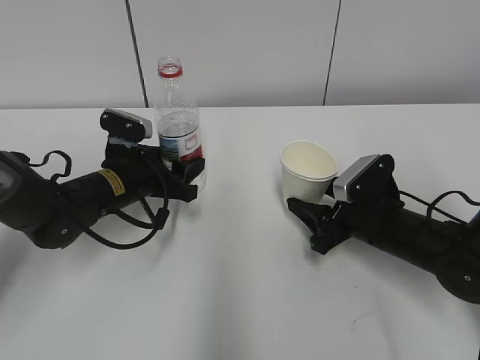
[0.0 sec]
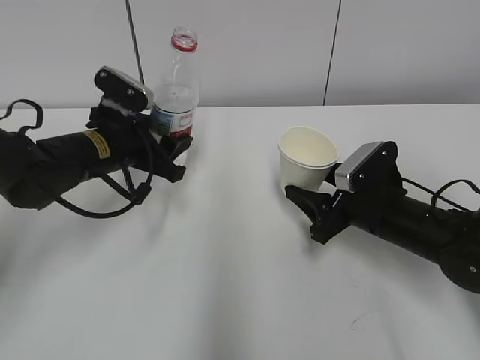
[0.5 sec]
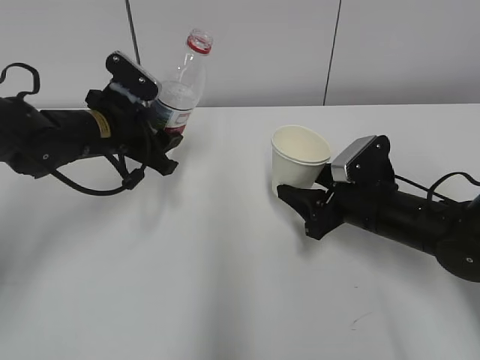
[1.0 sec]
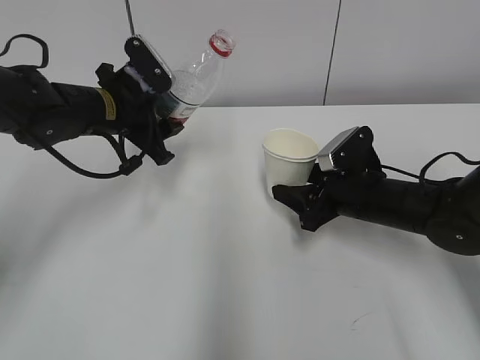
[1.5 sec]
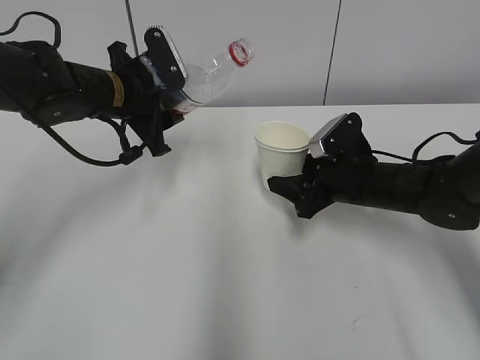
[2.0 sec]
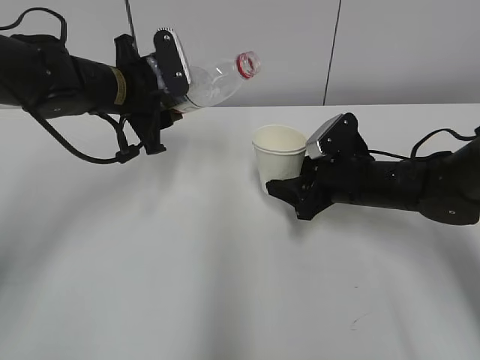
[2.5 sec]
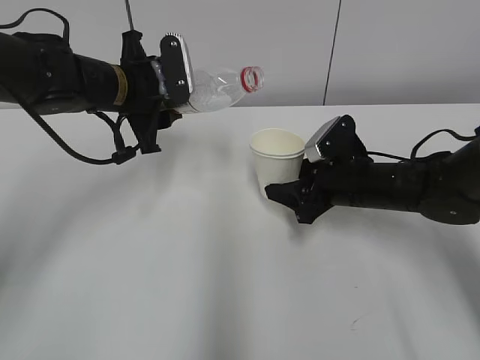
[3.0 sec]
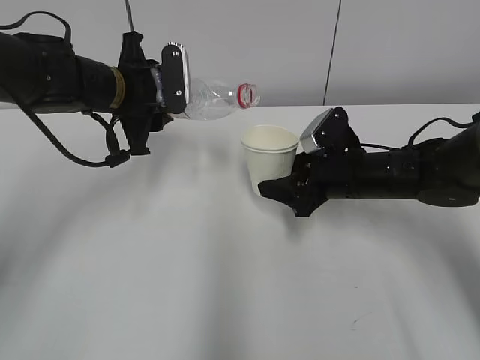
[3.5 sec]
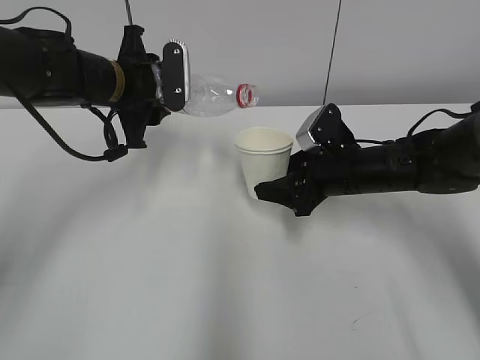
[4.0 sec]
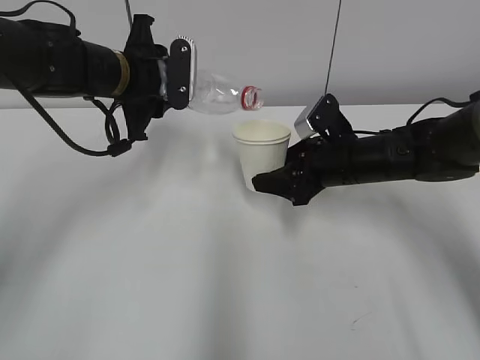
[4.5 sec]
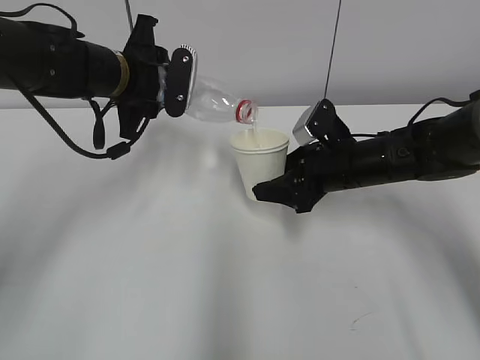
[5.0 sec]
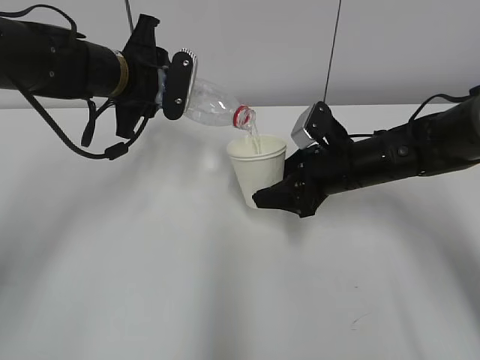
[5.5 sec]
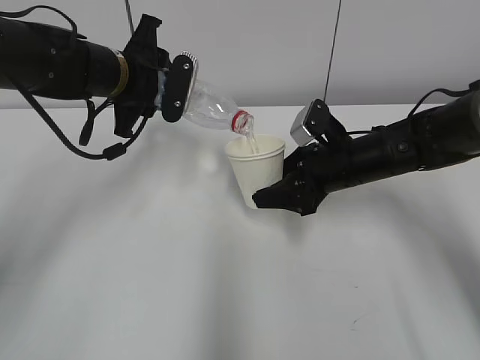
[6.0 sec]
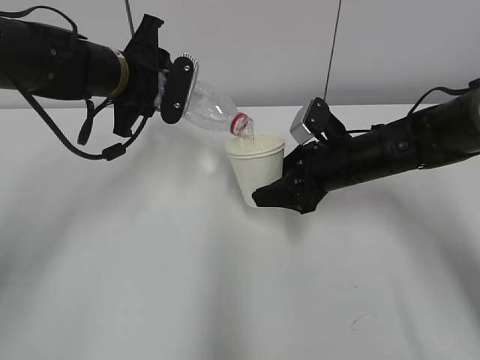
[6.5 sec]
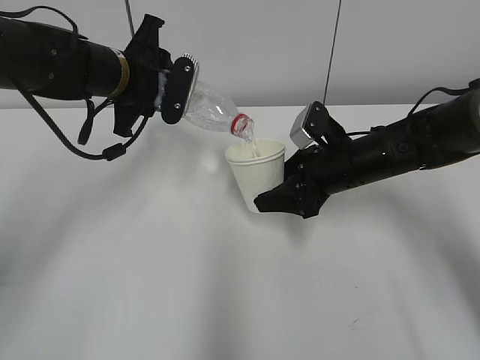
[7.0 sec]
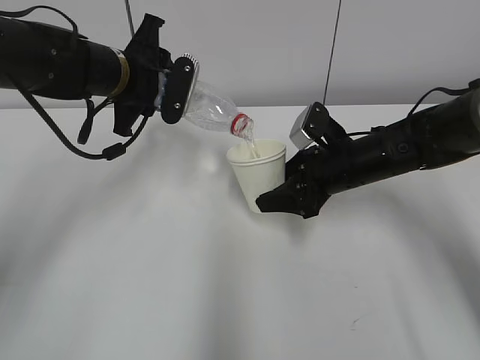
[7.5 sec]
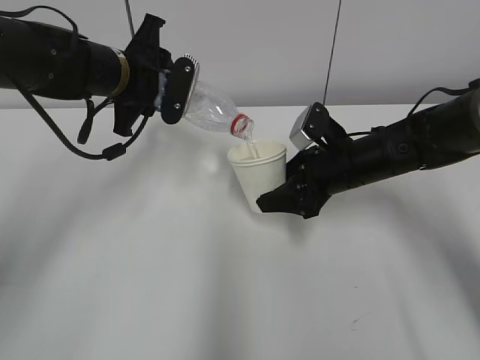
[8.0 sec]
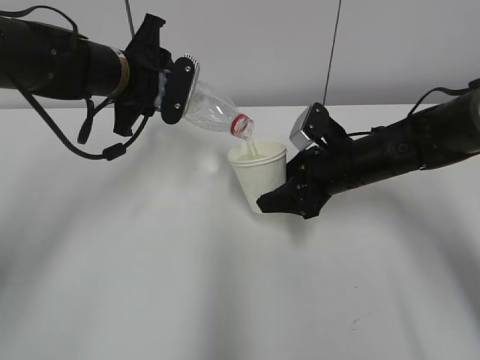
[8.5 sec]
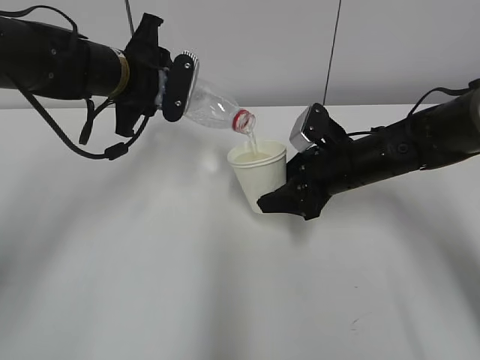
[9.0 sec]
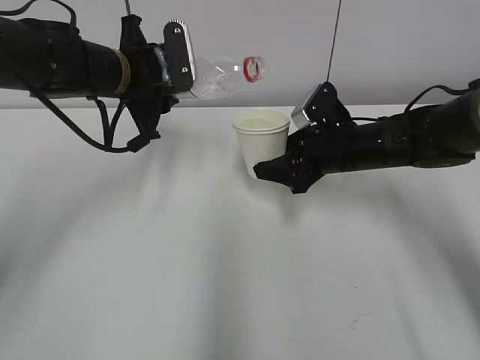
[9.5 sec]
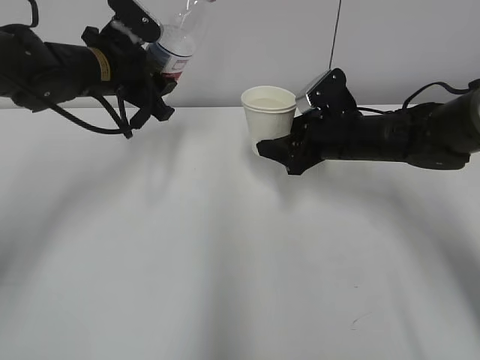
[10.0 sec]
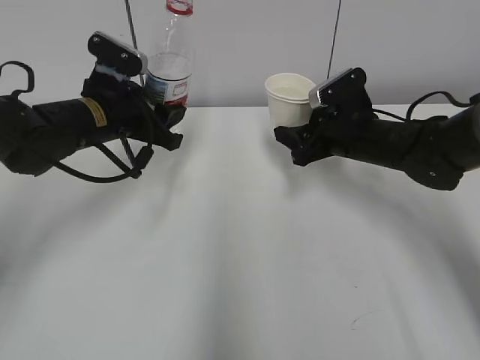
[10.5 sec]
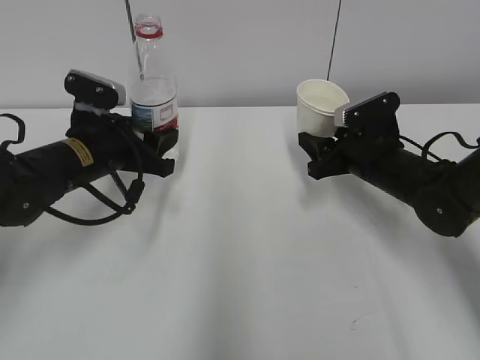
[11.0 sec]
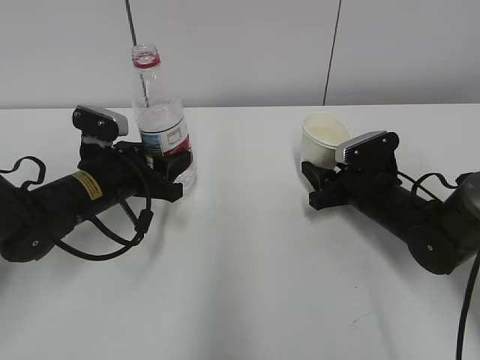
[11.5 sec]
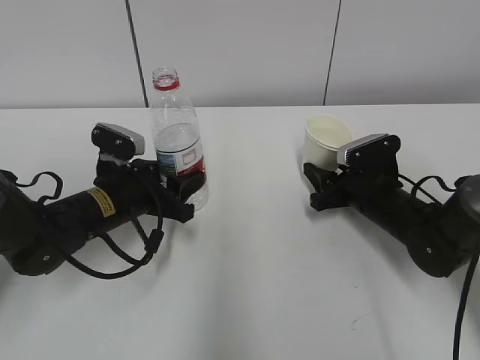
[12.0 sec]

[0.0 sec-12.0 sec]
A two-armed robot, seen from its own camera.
Step, 0.0 sec to 2.5 sec: Lift the paper cup with the right hand.
Step, 3.0 sec to 6.0 sec: Fill water with the right hand.
Step, 3.0 sec to 6.0 sec: Pour water with the left hand.
Step, 6.5 sec to 7.5 sec: Collect water with the left hand.
Step, 8.0 sec to 9.5 sec: Place the paper cup with the right hand.
0.0 sec to 2.0 sec: The right gripper changes place by about 5 cm, while the left gripper heads upward, covering roughly 10 cm.
4.0 sec to 6.0 sec: There are only small adjustments of the grippers.
6.0 sec to 8.0 sec: The two grippers keep their place.
10.0 sec to 12.0 sec: The left gripper shifts about 15 cm downward and backward; the right gripper goes roughly 10 cm downward.

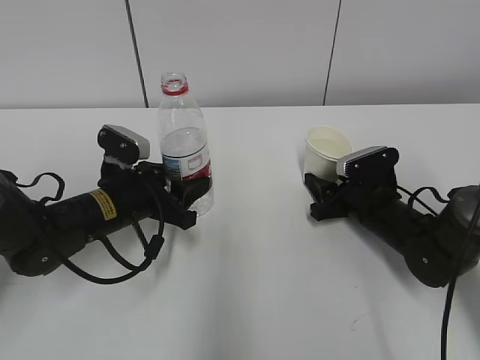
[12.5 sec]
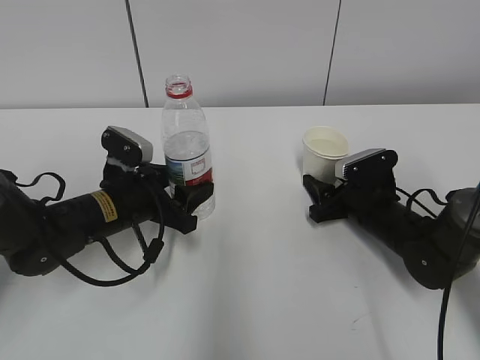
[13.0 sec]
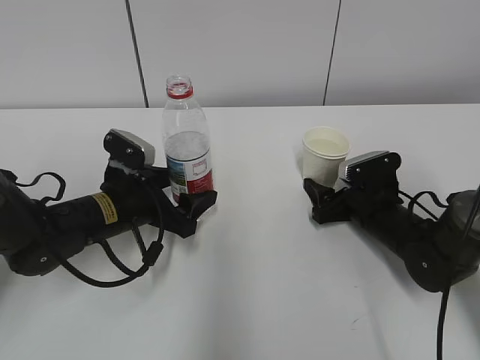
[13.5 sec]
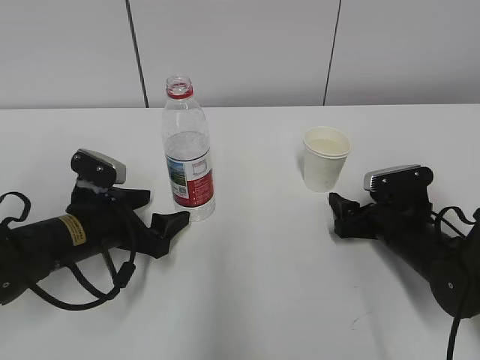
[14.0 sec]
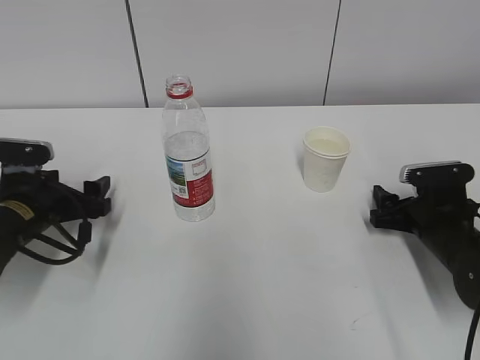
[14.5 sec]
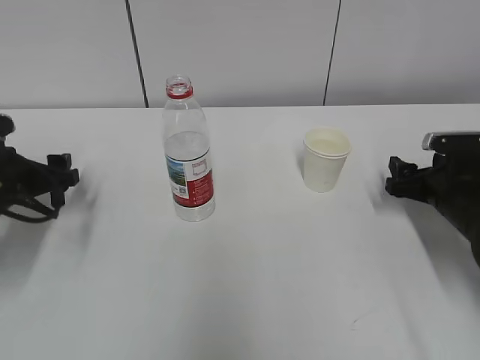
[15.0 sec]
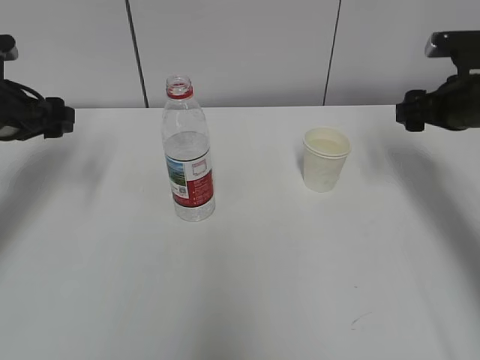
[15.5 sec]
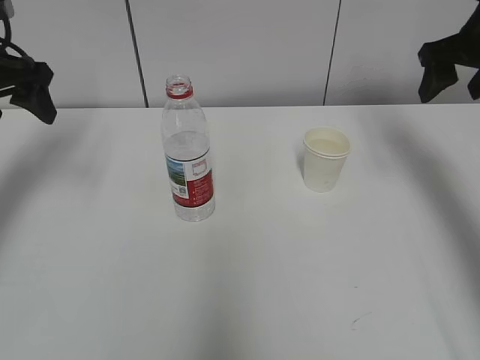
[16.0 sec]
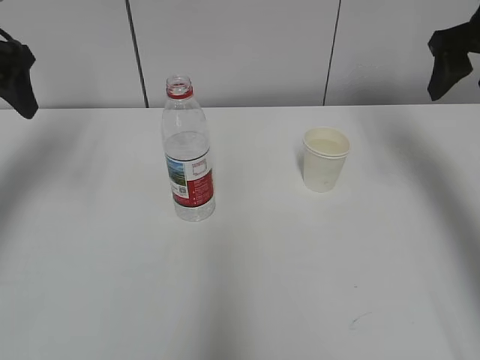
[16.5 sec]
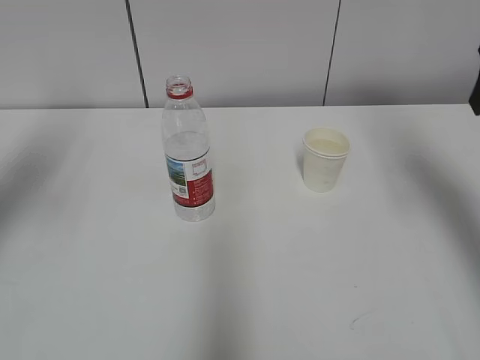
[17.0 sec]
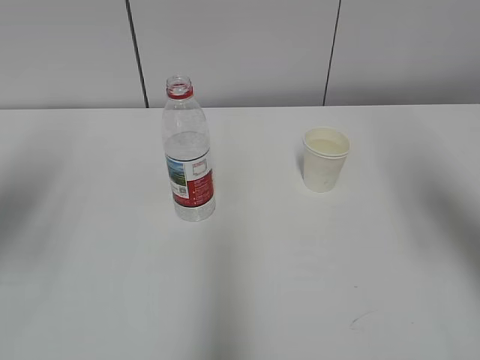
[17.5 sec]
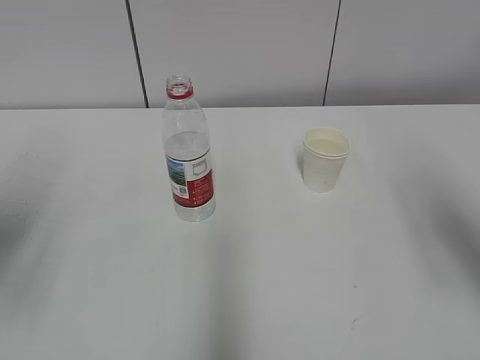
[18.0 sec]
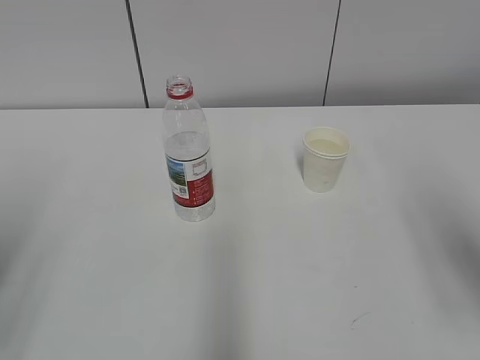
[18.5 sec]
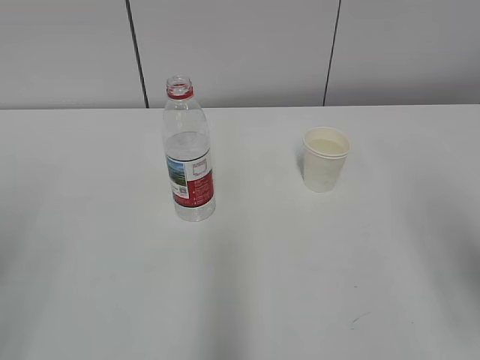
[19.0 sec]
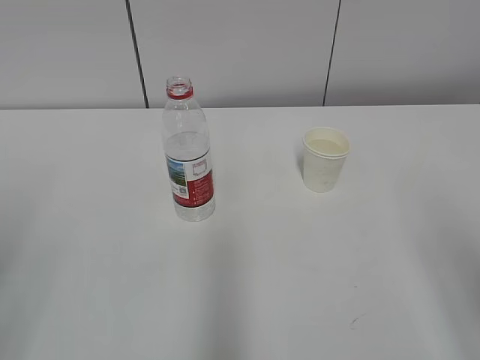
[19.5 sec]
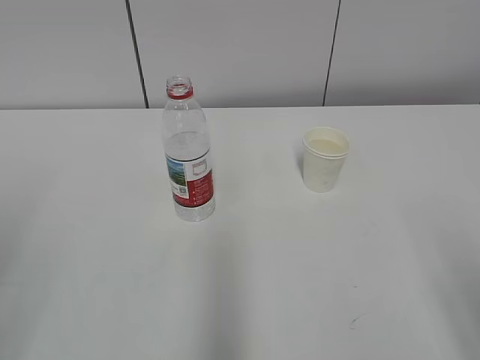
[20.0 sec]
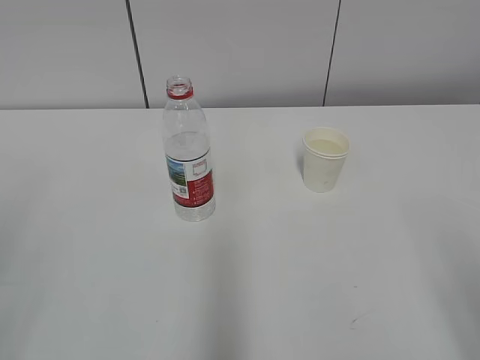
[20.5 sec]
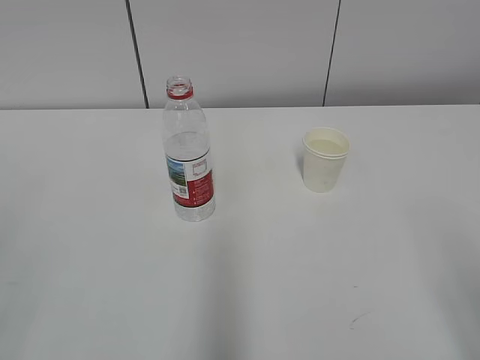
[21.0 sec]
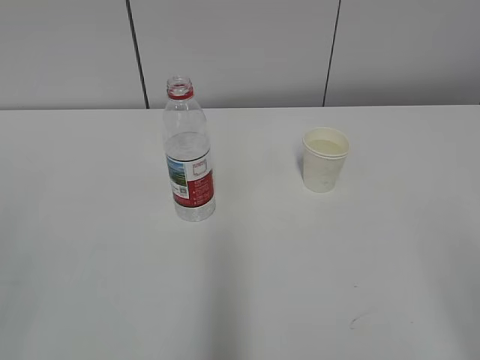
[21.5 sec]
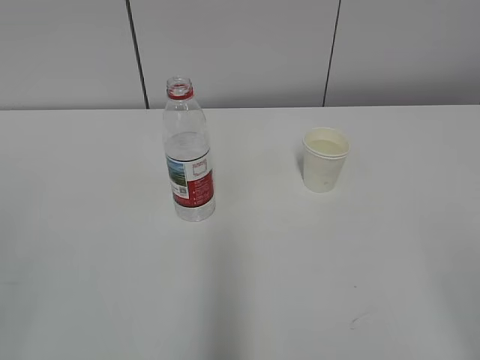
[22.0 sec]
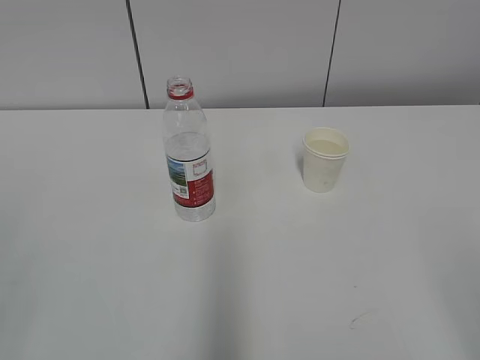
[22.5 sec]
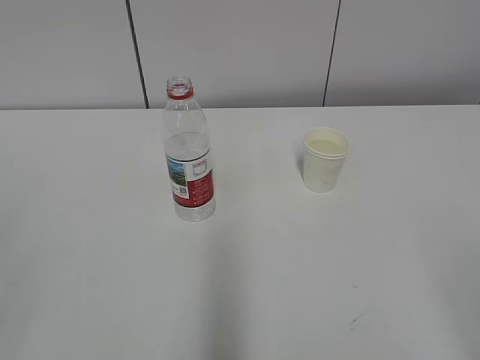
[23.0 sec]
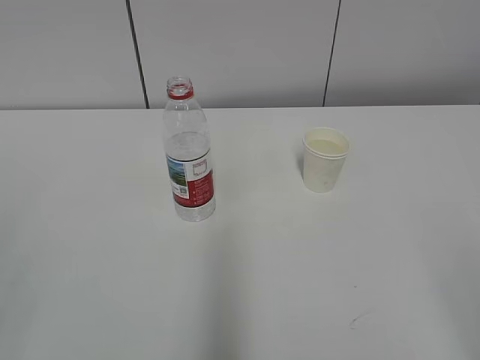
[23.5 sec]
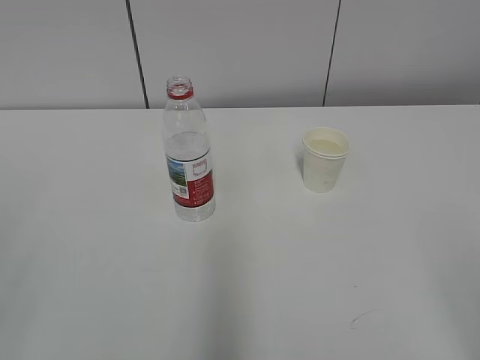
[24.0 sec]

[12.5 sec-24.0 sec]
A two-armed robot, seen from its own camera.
12.5 sec to 14.5 sec: The left gripper shifts some 10 cm to the left, and opens. Meanwhile the right gripper travels to the right by approximately 5 cm, and opens up.
14.5 sec to 16.5 sec: The two grippers go about 25 cm upward.
16.5 sec to 18.5 sec: Both grippers travel together backward, about 25 cm.
18.5 sec to 20.0 sec: The right gripper travels backward and downward by some 10 cm.
22.0 sec to 24.0 sec: The two grippers keep their place.

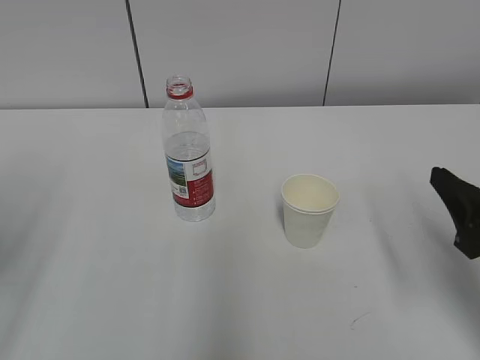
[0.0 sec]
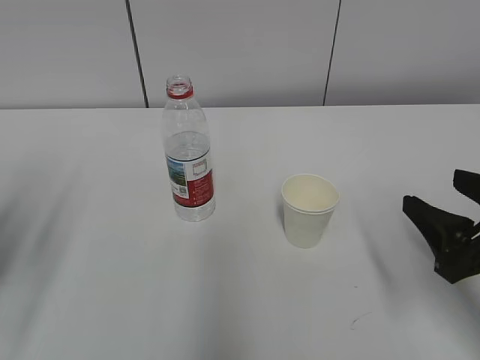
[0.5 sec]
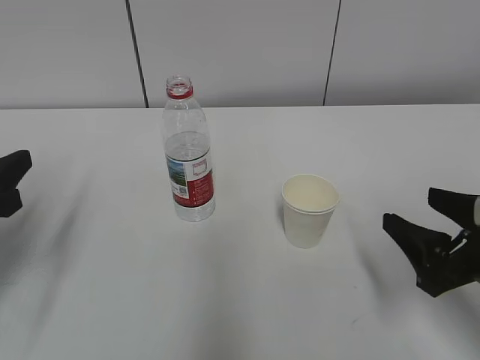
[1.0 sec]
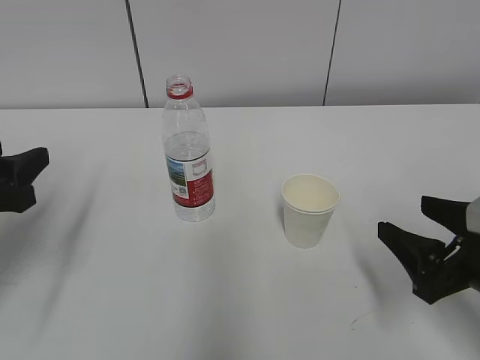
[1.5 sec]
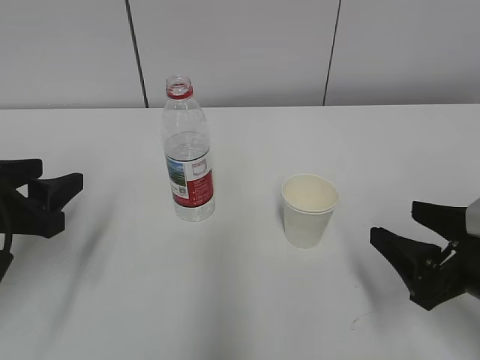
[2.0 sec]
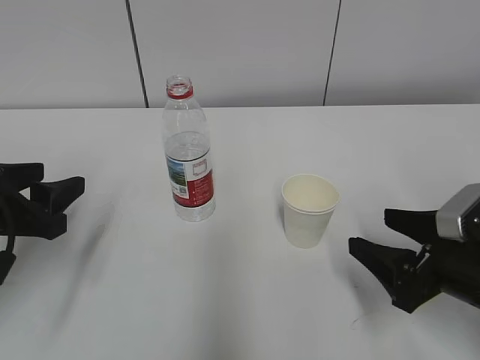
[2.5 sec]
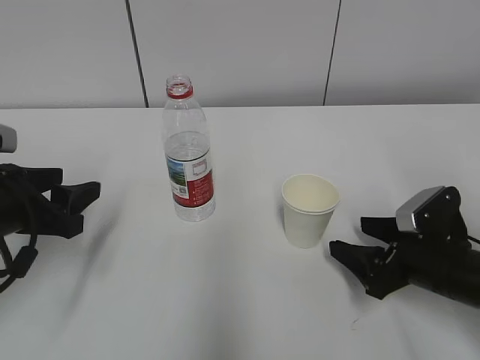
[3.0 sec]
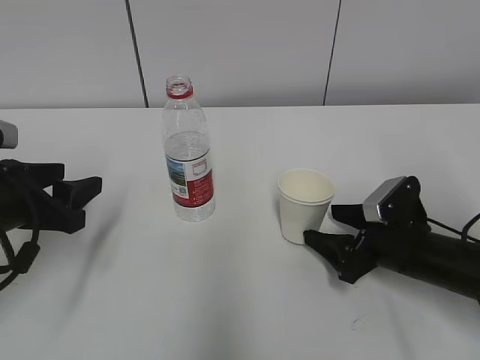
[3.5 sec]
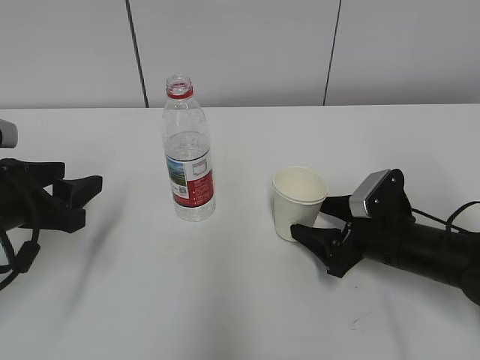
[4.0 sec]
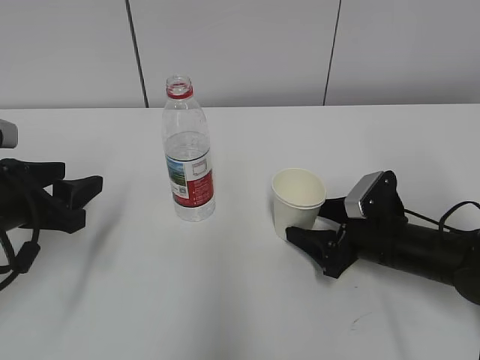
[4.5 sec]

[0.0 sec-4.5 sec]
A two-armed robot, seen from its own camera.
Step, 0.0 sec to 3.5 sec: Grab the paper cup with the right hand.
0.0 sec to 2.0 sec: The left gripper goes roughly 10 cm downward and forward. Meanwhile the right gripper travels downward by roughly 5 cm.
2.0 sec to 4.5 sec: The right gripper goes some 15 cm forward and downward.
